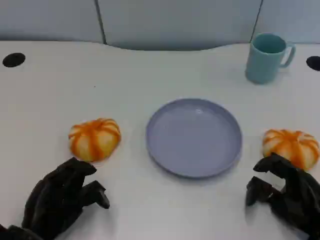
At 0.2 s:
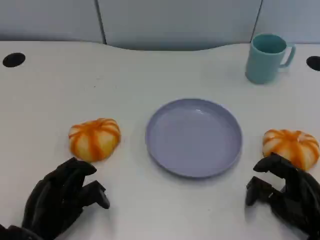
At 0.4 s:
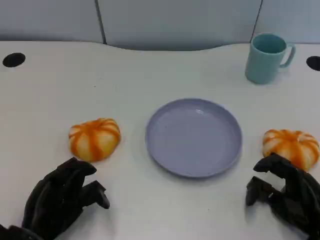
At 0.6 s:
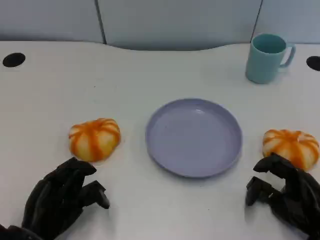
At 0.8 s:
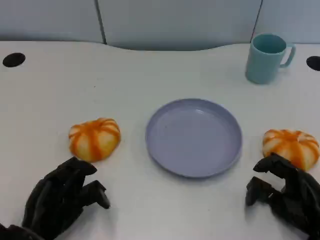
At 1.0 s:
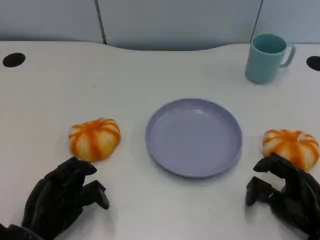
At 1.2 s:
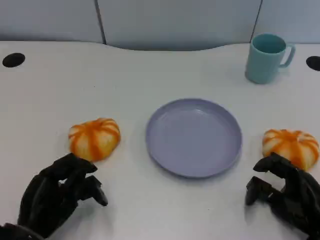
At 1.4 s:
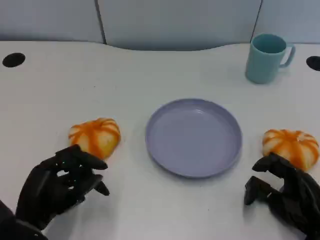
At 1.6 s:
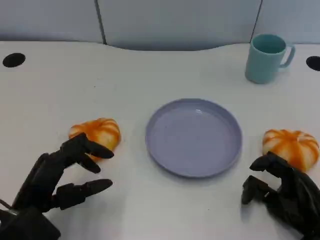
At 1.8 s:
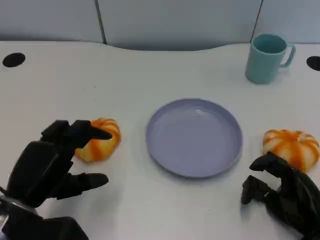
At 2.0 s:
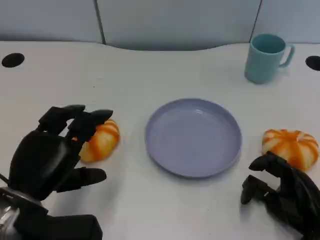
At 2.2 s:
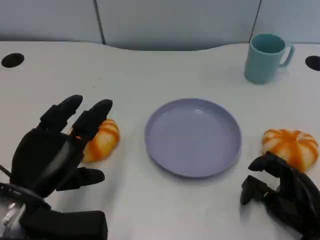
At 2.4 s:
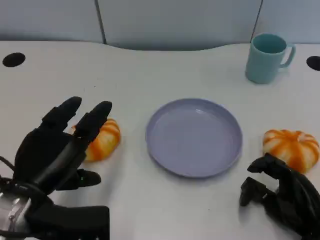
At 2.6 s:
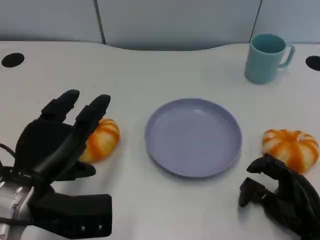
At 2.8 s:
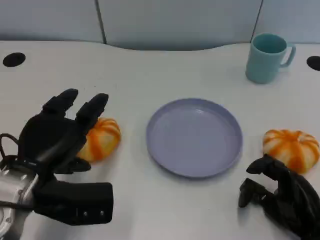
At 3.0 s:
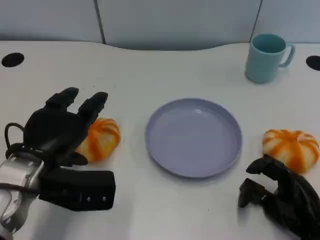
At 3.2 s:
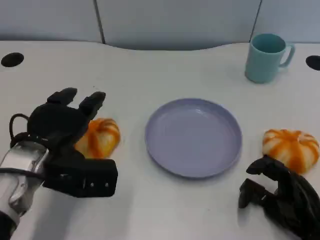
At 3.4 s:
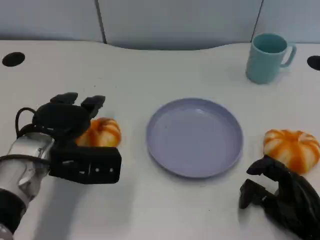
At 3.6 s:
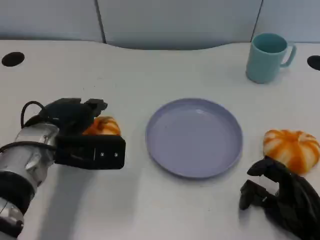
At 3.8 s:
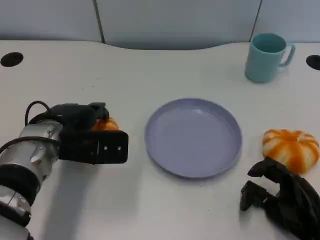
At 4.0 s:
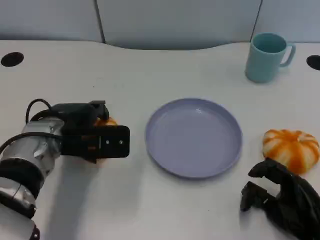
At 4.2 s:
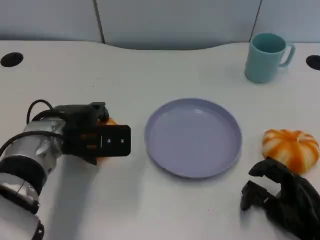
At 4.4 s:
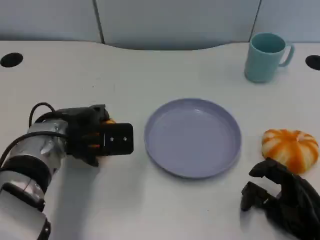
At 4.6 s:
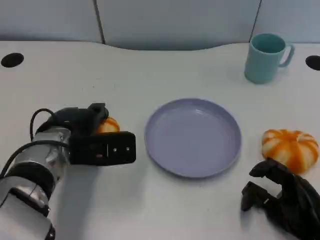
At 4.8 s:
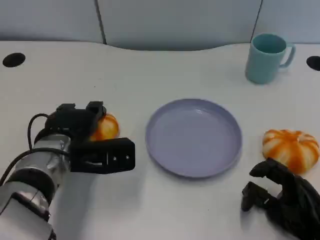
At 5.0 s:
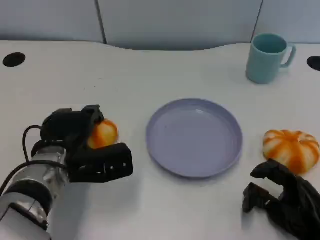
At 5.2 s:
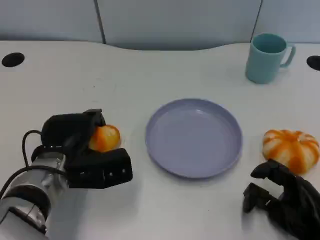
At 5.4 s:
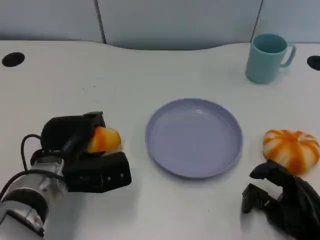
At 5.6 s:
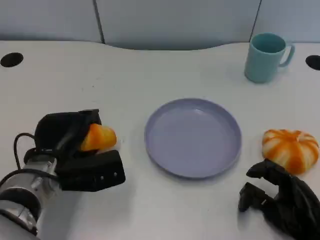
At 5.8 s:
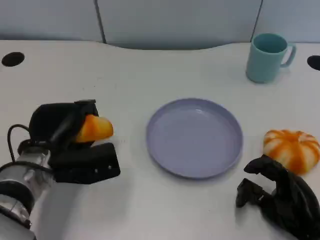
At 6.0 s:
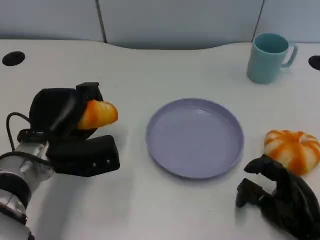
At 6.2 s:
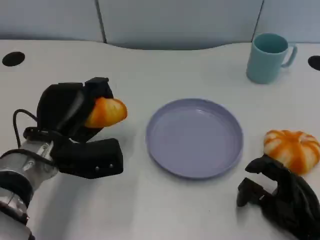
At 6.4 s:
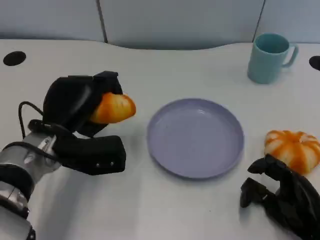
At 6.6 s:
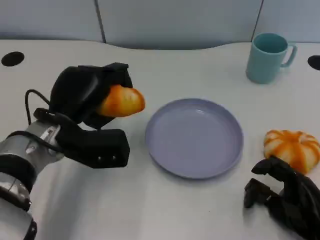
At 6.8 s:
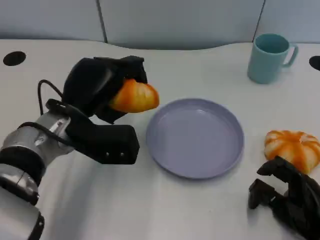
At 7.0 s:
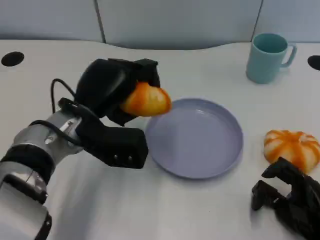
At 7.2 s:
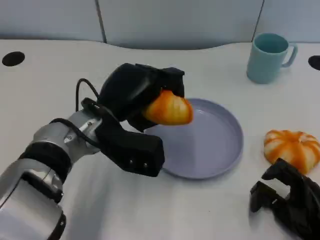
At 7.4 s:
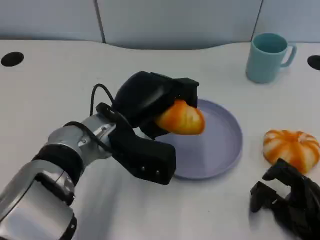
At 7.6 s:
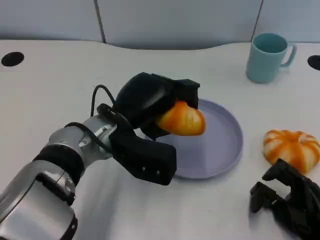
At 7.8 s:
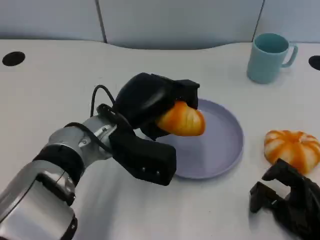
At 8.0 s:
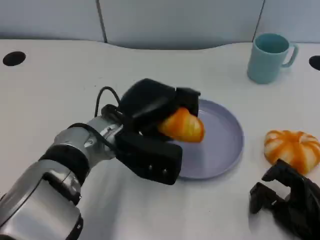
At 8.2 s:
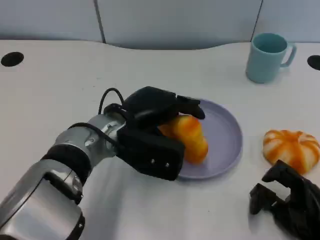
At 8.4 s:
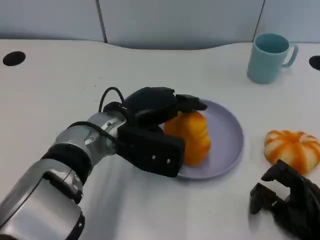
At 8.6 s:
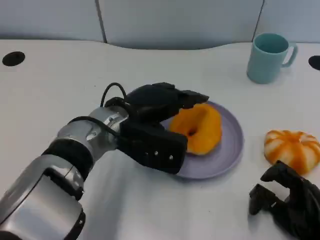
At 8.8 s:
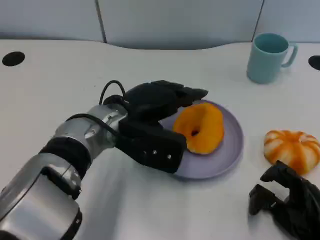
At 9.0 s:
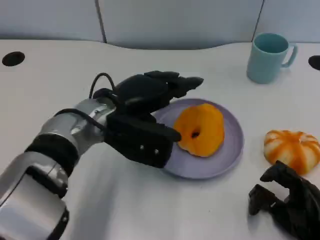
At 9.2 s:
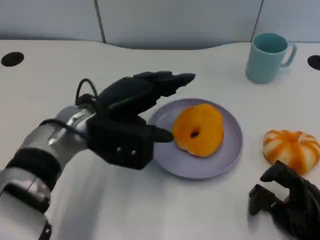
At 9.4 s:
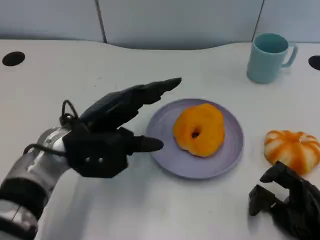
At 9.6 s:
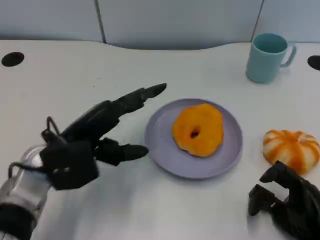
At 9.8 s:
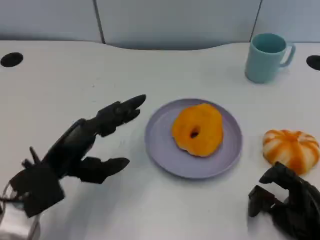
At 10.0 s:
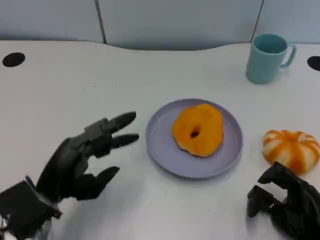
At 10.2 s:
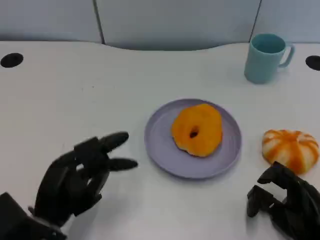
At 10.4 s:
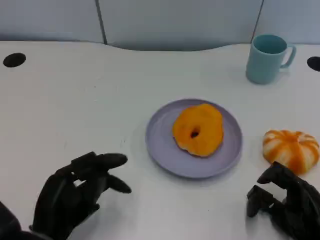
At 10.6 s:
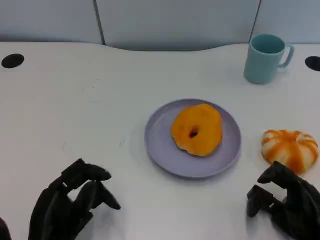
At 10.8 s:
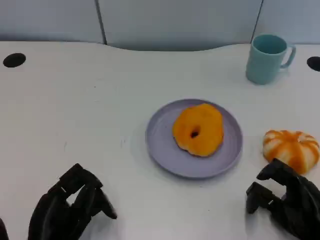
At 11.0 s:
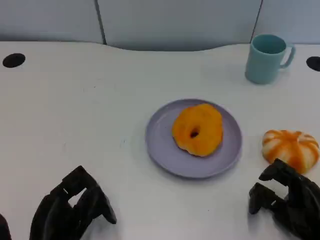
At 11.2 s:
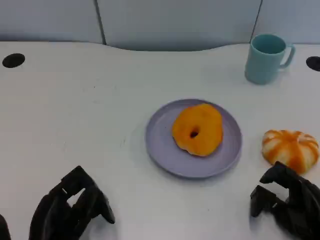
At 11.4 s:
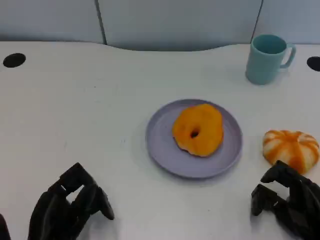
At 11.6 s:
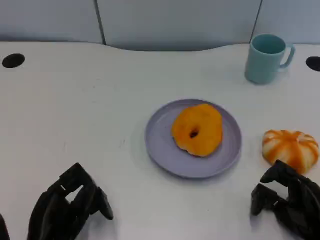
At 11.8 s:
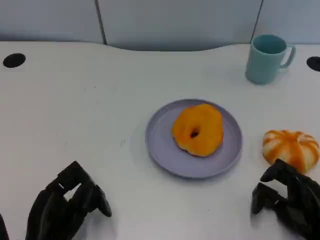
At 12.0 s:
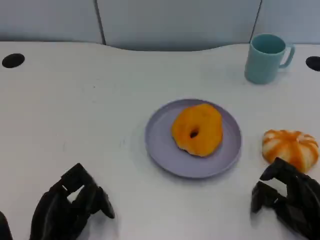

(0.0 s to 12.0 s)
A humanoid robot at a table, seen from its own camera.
Task of the whole recording: Grasp the bread from the table and place it into the plate.
0.0 s - 1.6 s: The left hand moves upward, approximately 5 cm.
1.6 s - 3.0 s: The left hand moves forward, some 5 cm.
3.0 s - 4.4 s: The left hand goes approximately 5 cm forward.
6.0 s - 7.6 s: The left hand shifts roughly 10 cm to the right.
9.0 s - 10.4 s: The left hand goes about 20 cm backward, downward and to the left.
10.4 s - 12.0 s: The hands move only a little.

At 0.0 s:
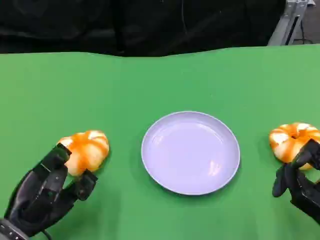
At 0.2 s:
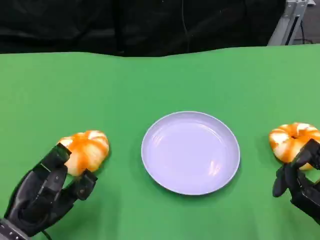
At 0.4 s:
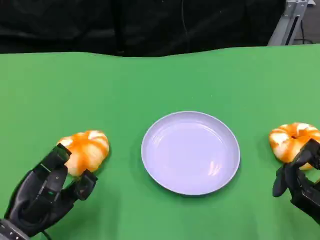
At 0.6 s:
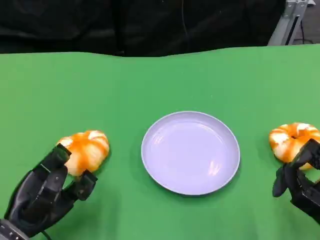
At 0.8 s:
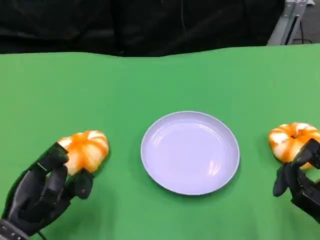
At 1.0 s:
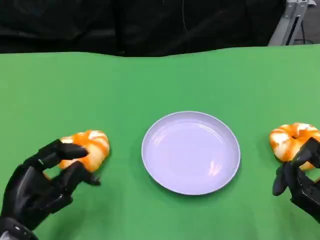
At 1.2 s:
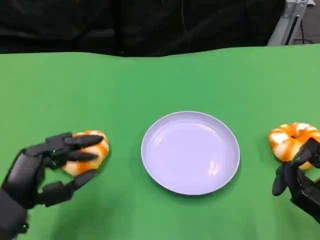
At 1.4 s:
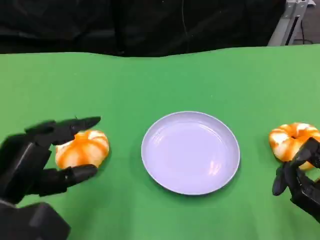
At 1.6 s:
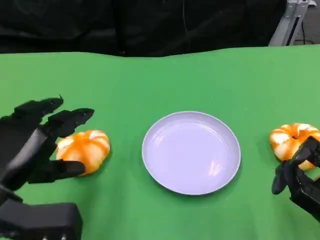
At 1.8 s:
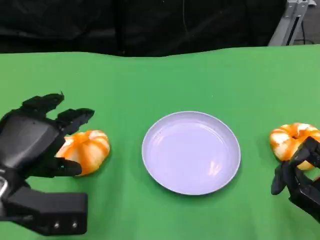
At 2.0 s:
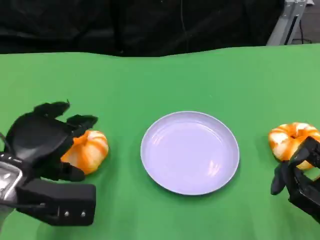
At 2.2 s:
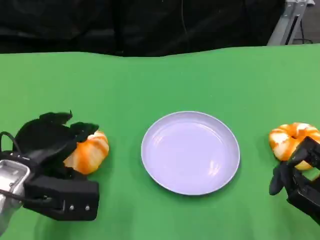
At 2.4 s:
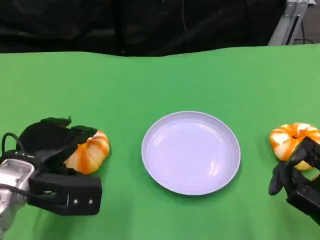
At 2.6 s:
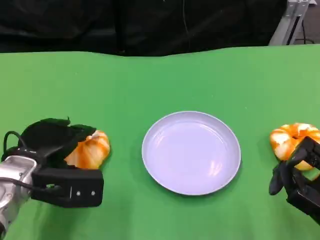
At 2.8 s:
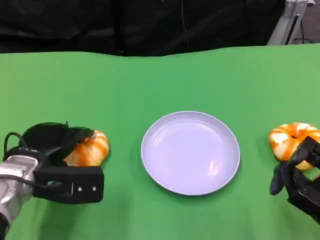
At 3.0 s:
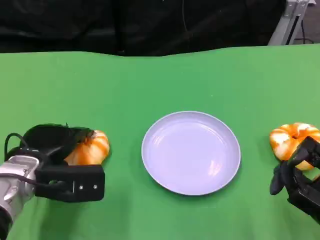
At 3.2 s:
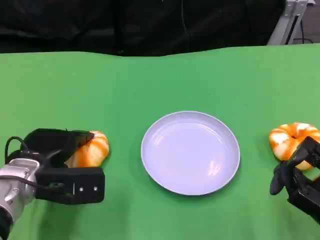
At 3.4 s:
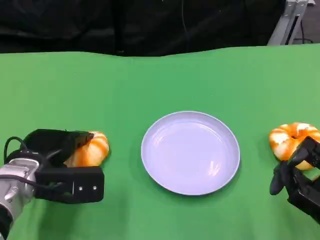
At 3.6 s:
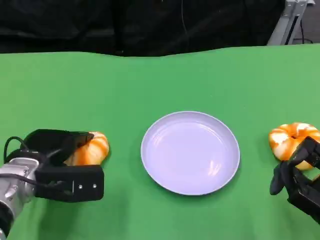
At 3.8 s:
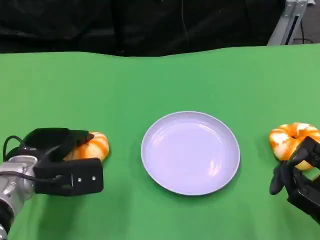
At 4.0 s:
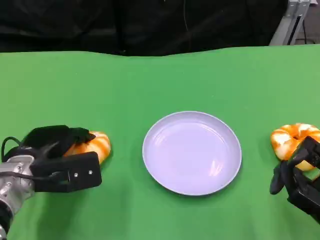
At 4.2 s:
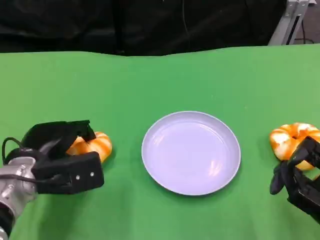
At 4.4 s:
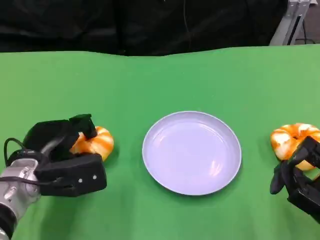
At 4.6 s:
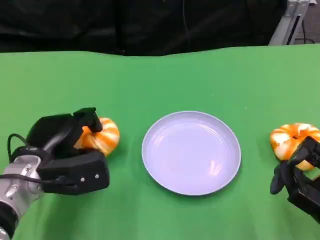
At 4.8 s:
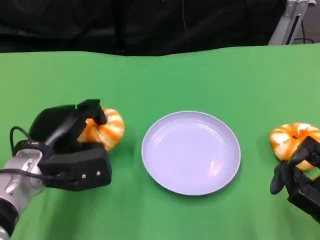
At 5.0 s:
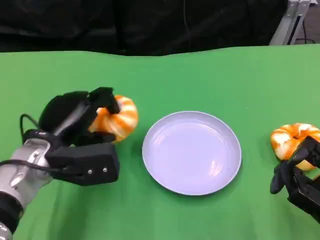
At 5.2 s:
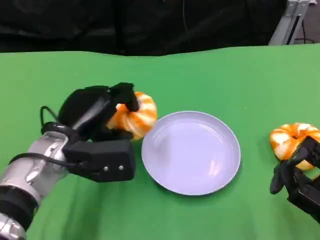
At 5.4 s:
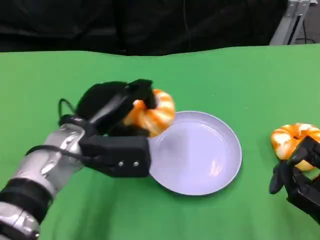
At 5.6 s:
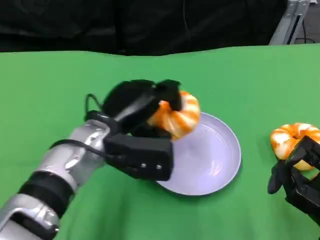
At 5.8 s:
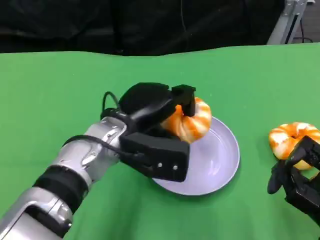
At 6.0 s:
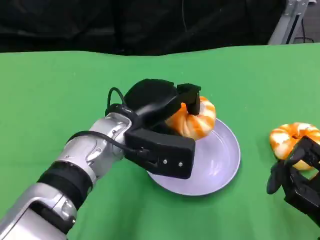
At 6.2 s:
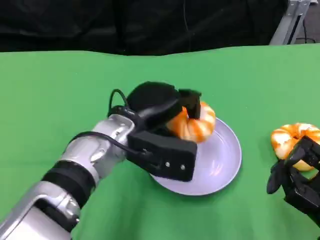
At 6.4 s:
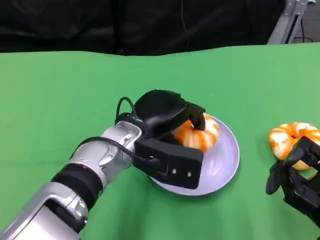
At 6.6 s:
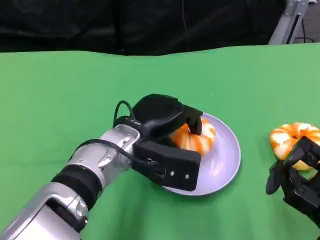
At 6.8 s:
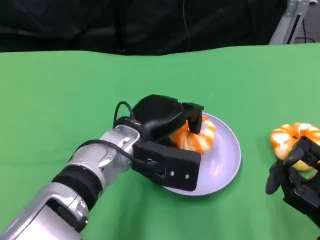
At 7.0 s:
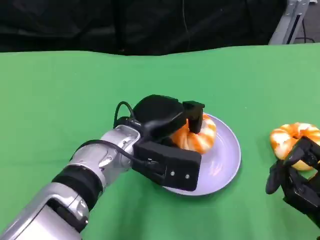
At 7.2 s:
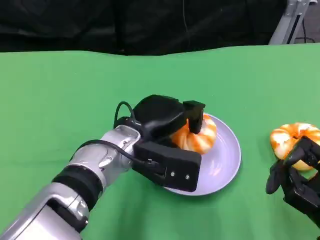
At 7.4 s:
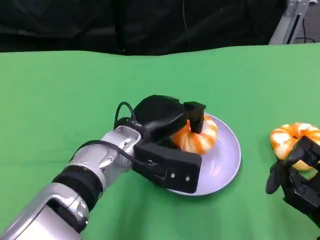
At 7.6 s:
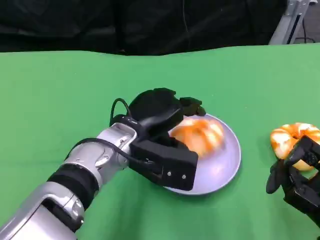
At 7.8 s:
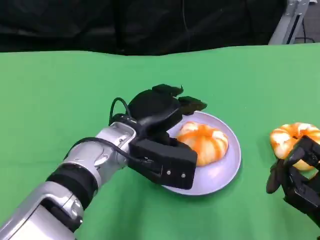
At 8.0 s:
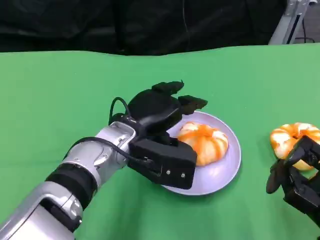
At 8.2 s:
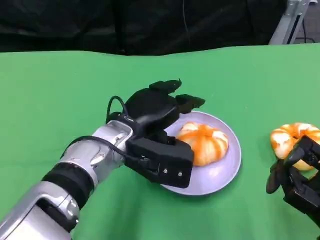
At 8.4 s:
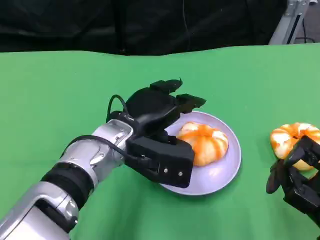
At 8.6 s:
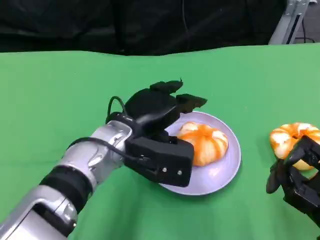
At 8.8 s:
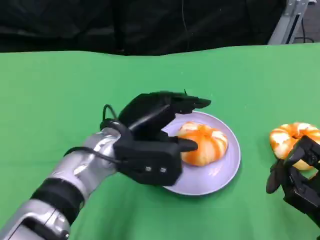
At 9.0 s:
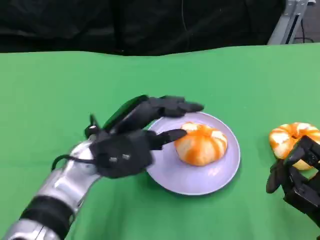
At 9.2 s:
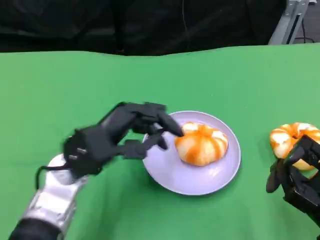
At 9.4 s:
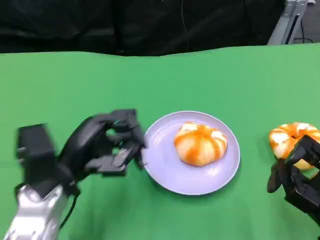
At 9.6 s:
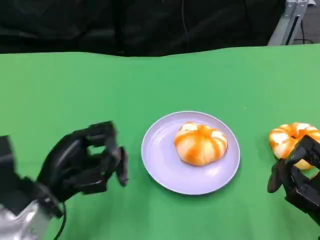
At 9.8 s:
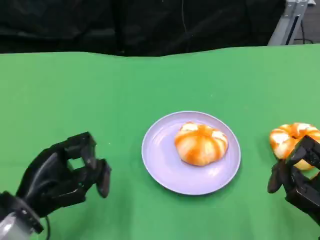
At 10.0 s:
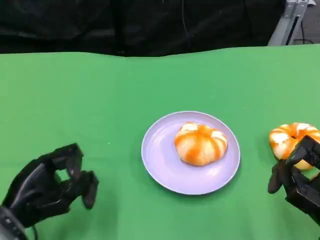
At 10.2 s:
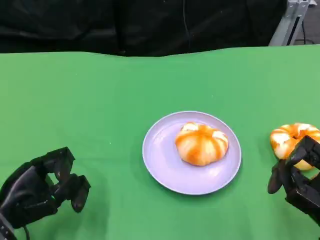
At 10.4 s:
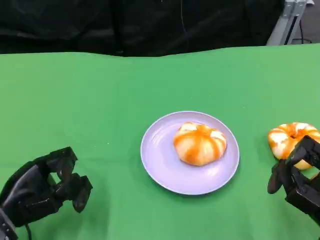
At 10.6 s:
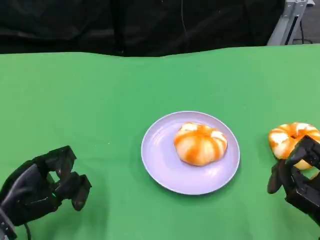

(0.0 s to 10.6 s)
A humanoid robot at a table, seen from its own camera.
Task of the whole recording: Grasp the bread from the table and place it into the plate.
0.0 s - 1.6 s: The left hand heads upward, covering about 10 cm.
1.6 s - 3.0 s: The left hand shifts about 10 cm forward and downward.
4.6 s - 6.0 s: The left hand heads to the right and upward, covering about 15 cm.
6.0 s - 7.6 s: There are only small adjustments of the hands.
7.6 s - 9.0 s: The left hand changes place by approximately 5 cm.
9.0 s - 10.6 s: The left hand goes approximately 20 cm to the left, downward and backward.
